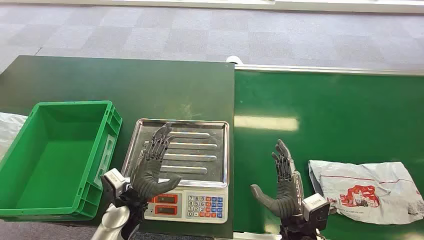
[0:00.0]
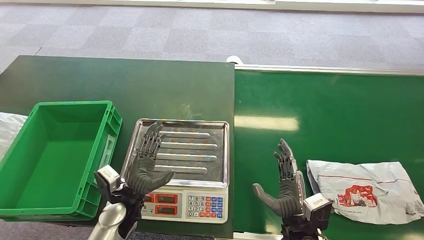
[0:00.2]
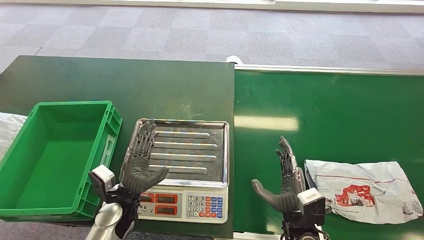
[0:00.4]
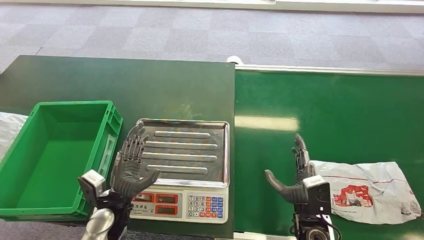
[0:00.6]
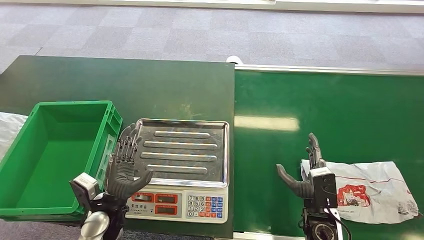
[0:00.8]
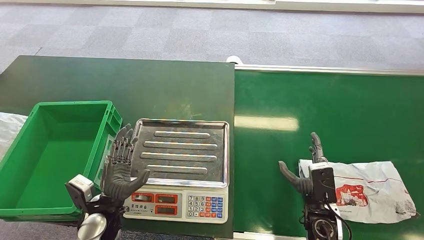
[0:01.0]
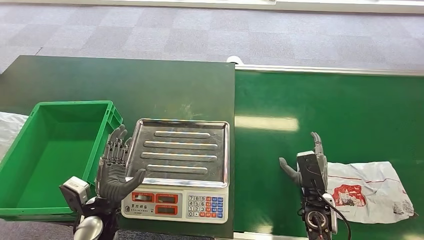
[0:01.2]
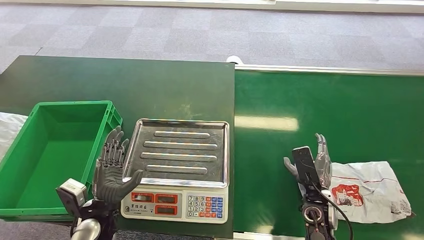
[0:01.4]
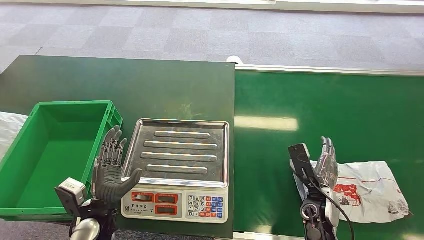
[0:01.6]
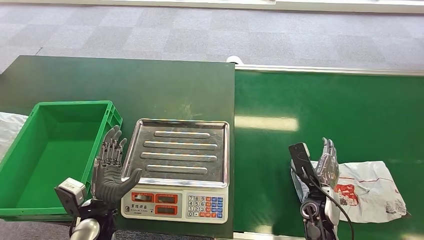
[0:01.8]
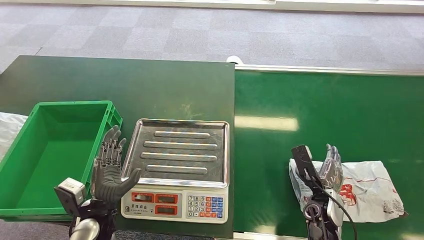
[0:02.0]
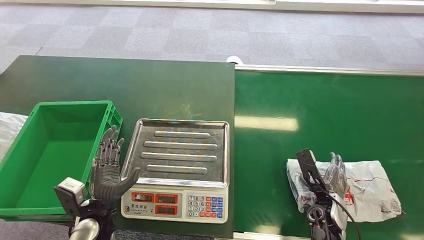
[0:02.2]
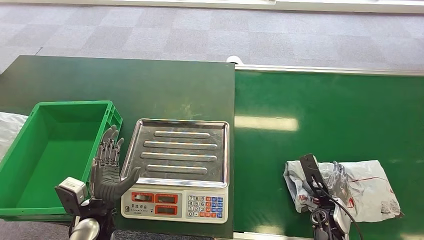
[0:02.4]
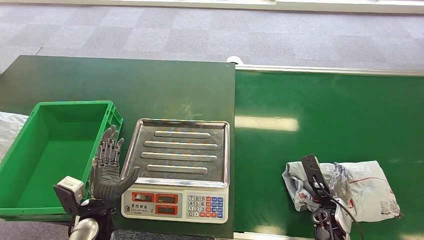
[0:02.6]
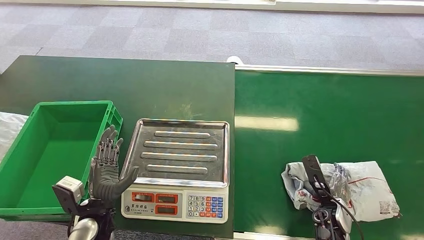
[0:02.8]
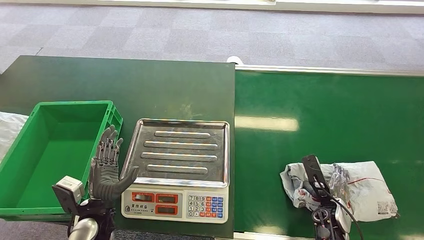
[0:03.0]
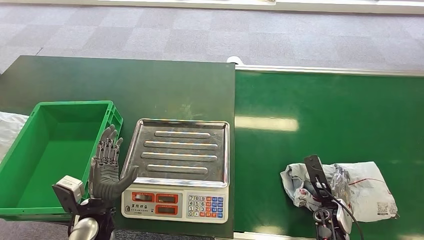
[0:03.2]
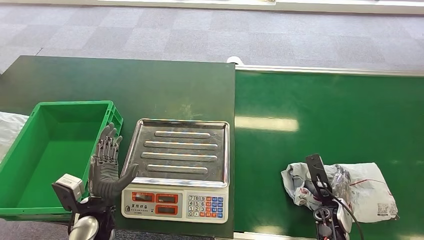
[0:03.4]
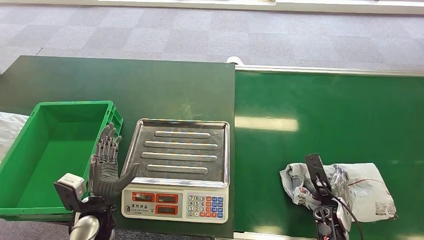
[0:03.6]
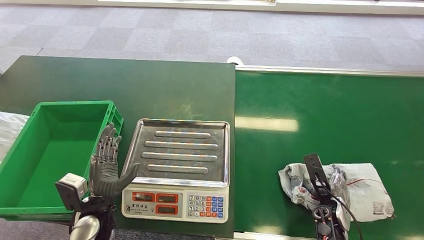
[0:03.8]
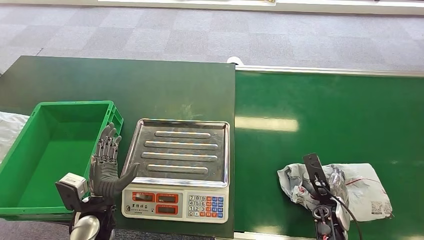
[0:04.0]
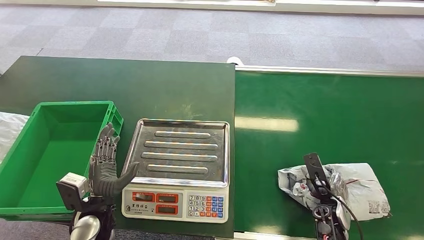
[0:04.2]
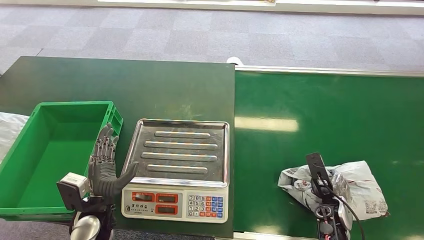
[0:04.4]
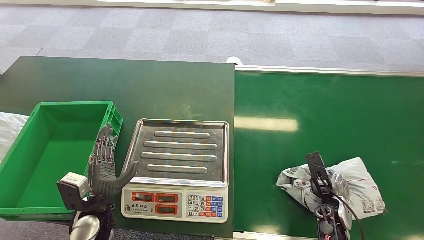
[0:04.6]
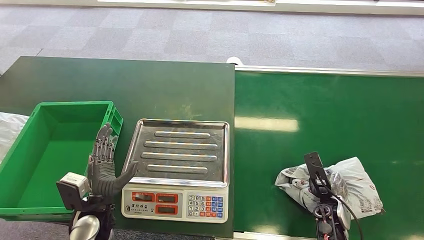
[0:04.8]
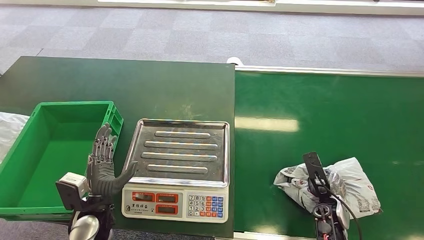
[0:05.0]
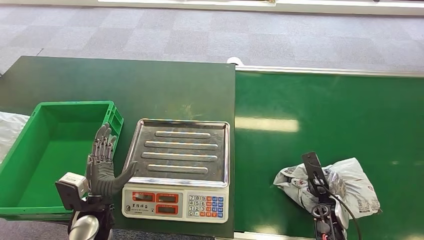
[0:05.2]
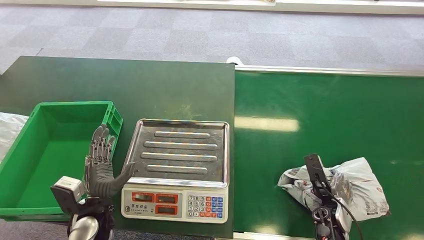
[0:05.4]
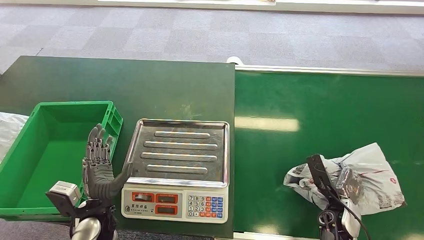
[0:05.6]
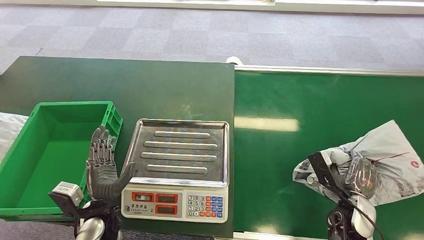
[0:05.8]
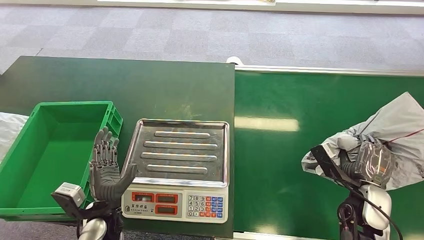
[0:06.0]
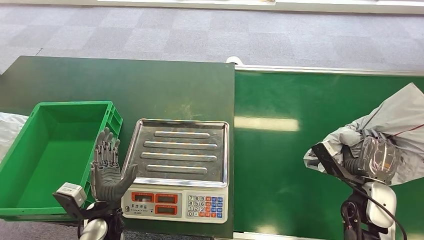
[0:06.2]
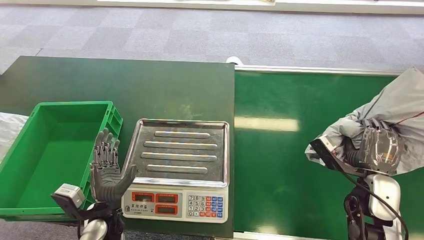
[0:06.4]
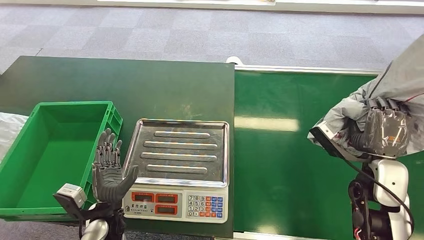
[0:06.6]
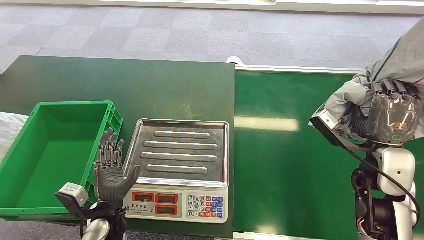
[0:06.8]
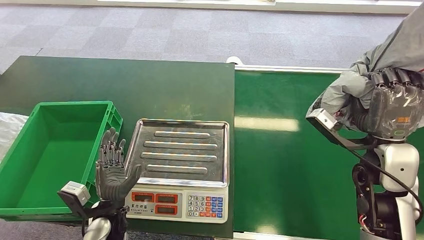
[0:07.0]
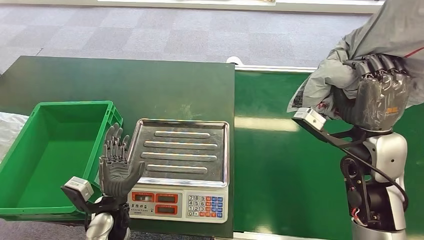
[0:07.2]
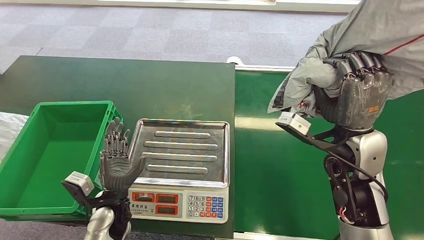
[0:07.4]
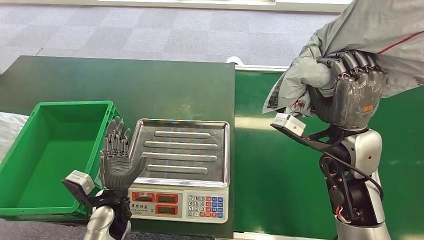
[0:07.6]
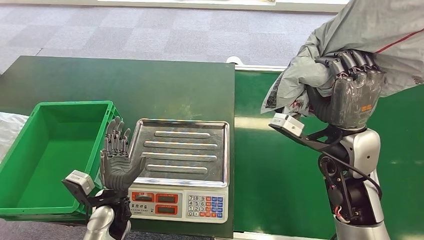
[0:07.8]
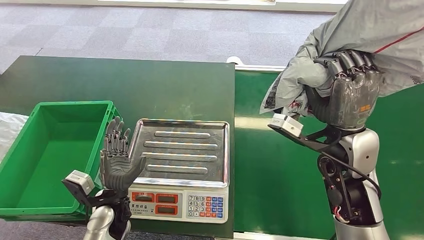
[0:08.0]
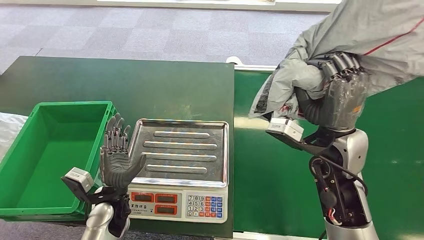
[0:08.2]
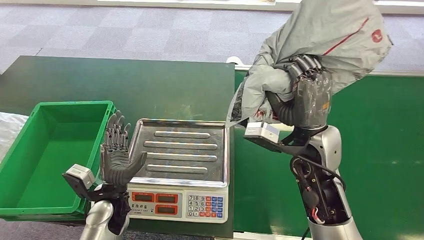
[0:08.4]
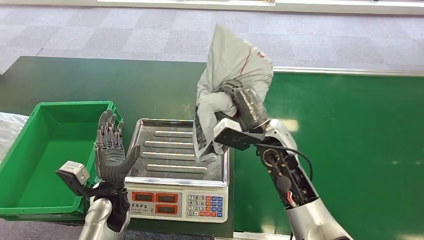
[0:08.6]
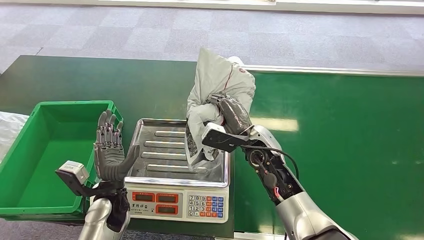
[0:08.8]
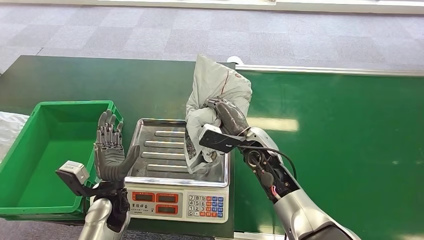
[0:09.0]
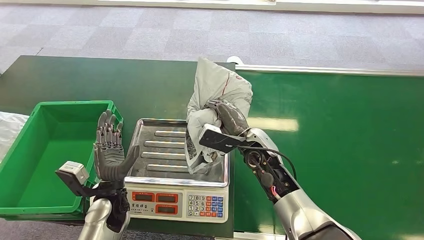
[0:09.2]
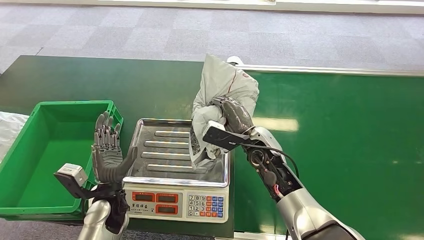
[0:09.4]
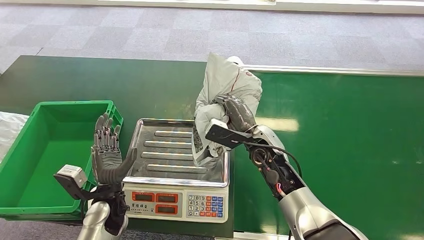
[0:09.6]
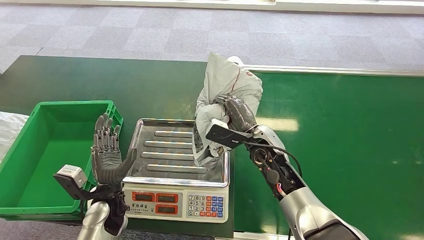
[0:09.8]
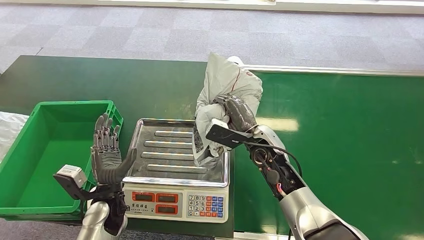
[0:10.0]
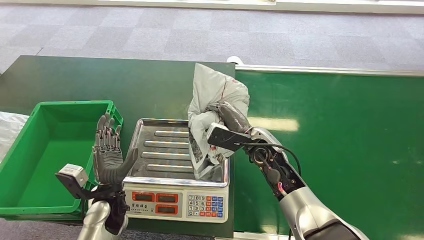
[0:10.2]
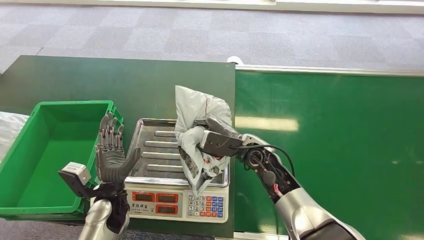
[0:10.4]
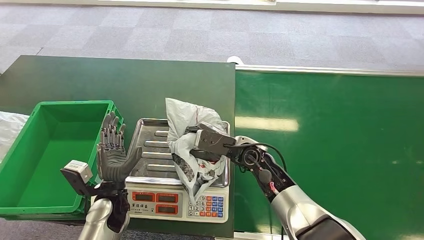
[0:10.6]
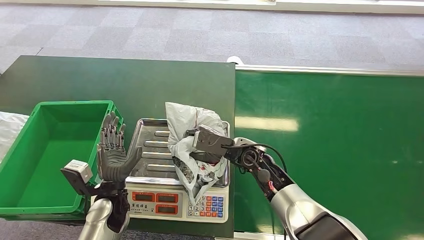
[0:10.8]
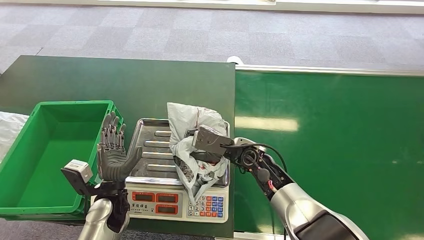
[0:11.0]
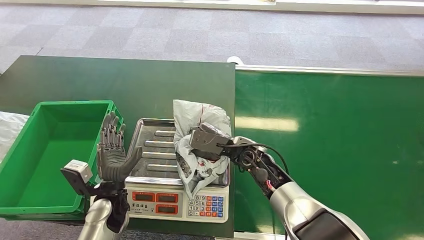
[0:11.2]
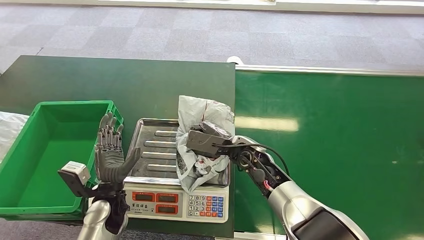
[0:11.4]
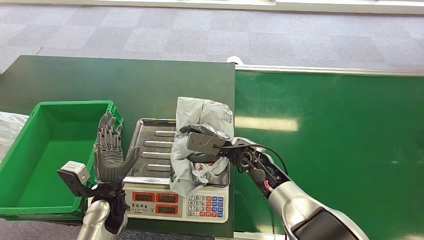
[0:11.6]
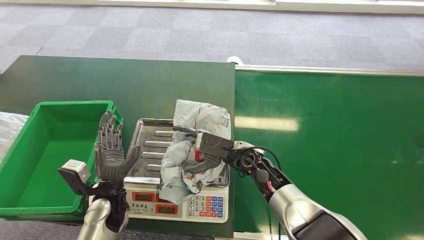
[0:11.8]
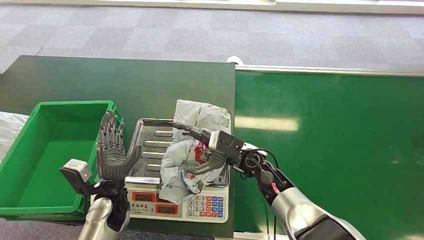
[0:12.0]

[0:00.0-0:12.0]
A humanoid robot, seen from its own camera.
Step, 0:00.0 to 0:05.8: Pick up the package from the conveyor belt.
0:01.6 to 0:03.0: The right hand is displaced to the right by some 5 cm.
0:03.0 to 0:04.4: The hands stay close to where they were, moving slightly.
0:04.4 to 0:06.0: The right hand goes roughly 10 cm upward.

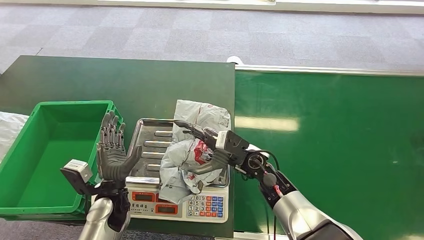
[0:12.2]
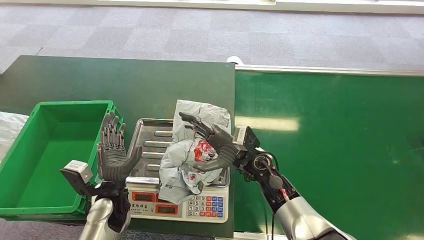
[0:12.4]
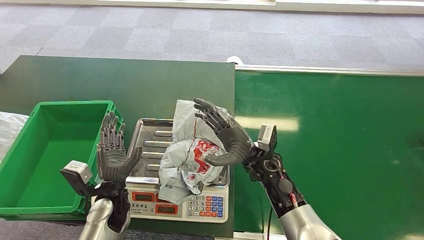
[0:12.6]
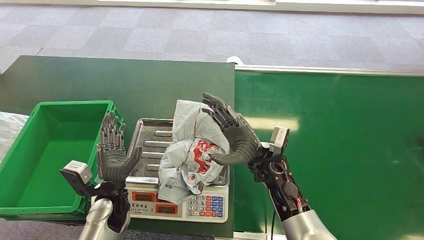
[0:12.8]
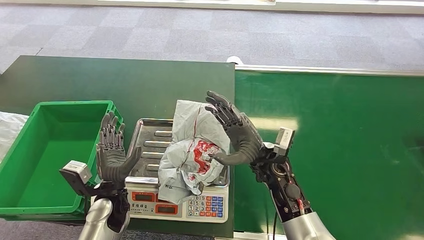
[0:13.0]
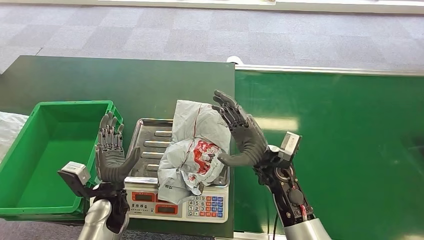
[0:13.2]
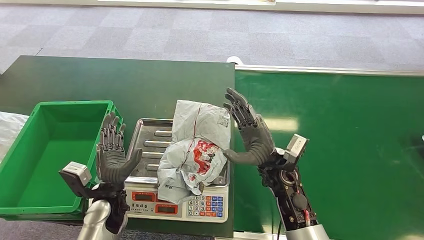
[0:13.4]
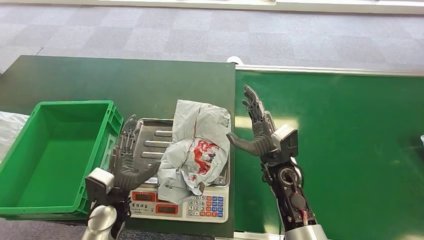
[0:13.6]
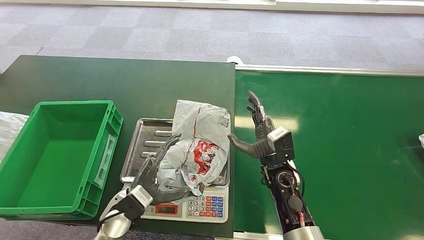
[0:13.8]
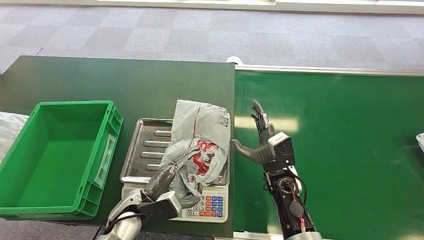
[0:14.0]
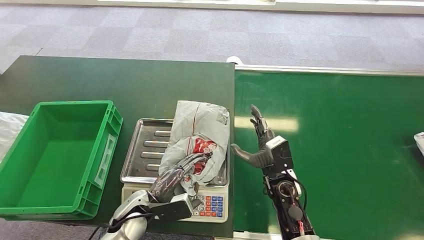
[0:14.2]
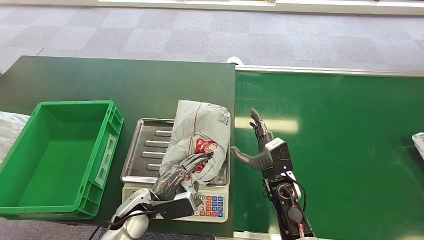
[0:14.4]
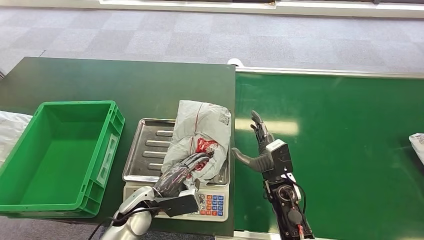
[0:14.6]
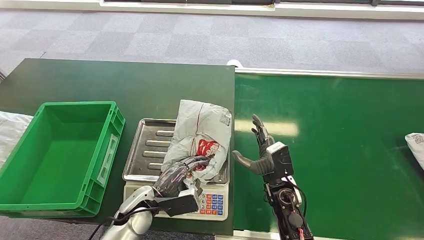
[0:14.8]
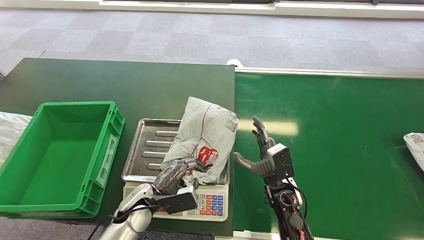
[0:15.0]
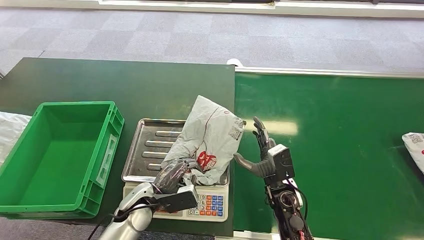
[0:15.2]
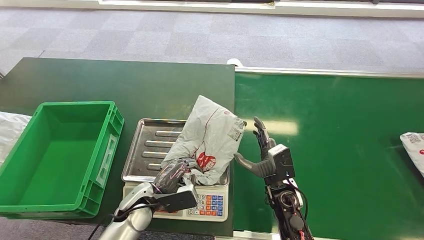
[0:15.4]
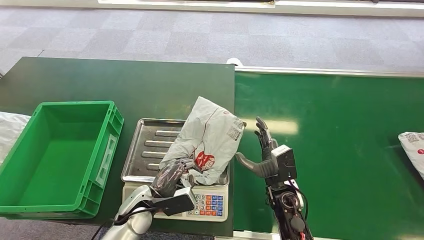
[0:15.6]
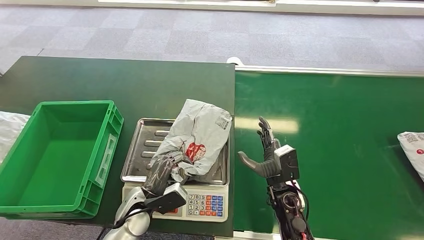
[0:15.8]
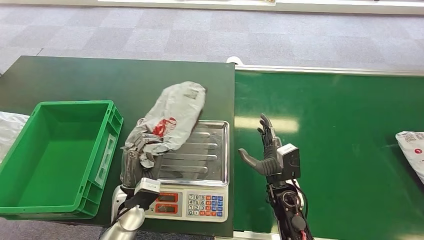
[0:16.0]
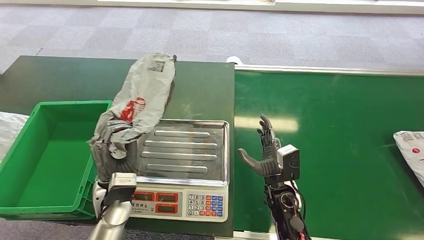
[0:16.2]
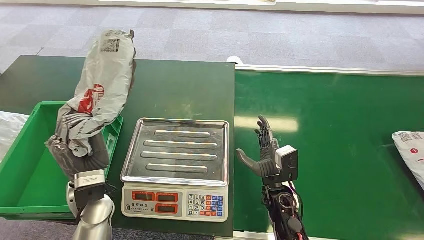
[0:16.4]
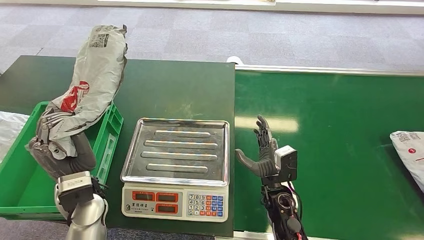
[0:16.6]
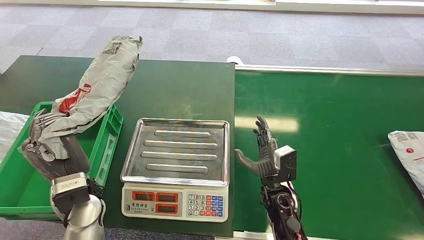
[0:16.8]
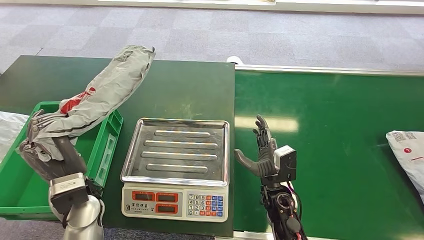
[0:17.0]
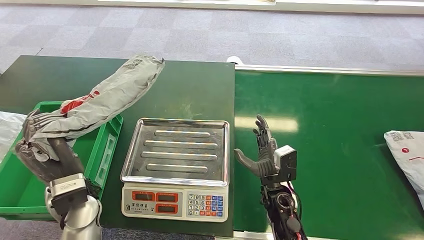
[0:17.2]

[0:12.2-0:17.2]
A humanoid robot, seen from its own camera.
Step, 0:13.2 to 0:16.4: Pick up the package from the inbound machine.
0:12.2 to 0:13.8: The right hand ends up some 5 cm from where it was.
0:13.8 to 0:15.6: The right hand shifts some 5 cm downward.
